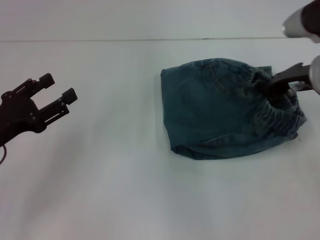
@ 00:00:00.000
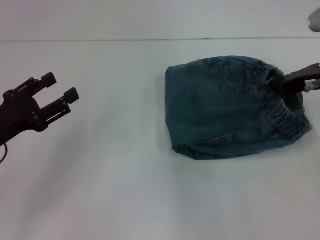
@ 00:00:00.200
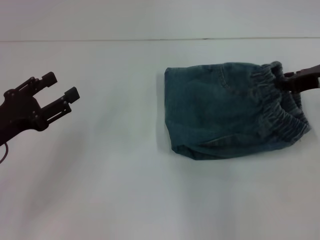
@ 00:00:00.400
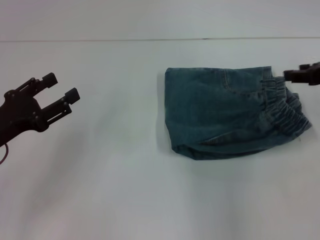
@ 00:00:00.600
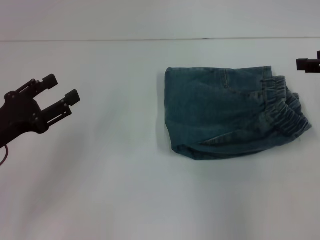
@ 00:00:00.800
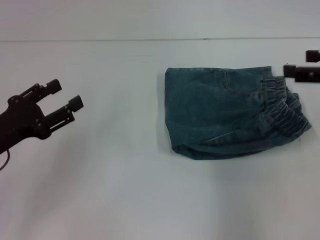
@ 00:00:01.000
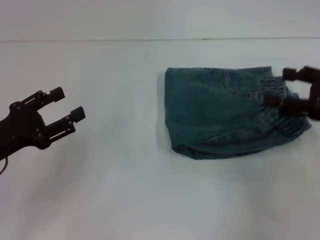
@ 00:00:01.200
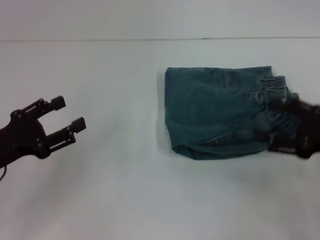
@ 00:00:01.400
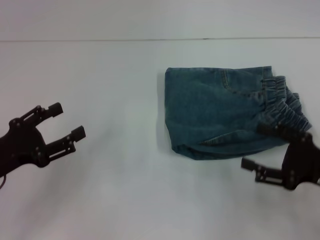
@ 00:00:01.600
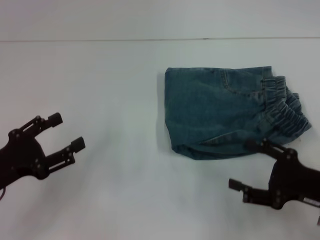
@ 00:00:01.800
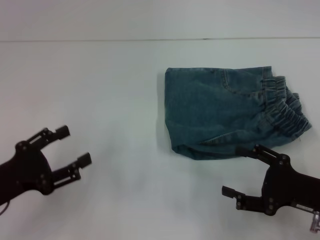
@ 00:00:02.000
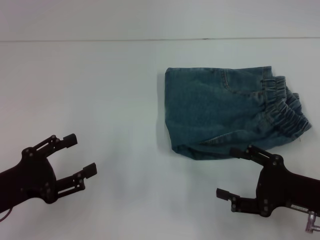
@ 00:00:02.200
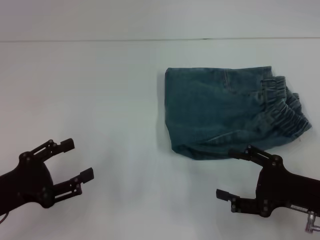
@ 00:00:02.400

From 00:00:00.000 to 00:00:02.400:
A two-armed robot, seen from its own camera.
From 00:00:00.000 to 00:00:01.200: The right gripper is displaced backward and to the right by some 10 cm, and opens.
From 00:00:01.200 to 00:00:02.400: The left gripper moves roughly 5 cm. Meanwhile the right gripper heads downward and backward, covering roughly 15 cm.
